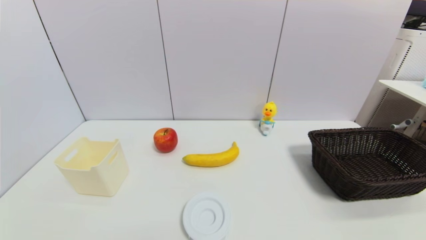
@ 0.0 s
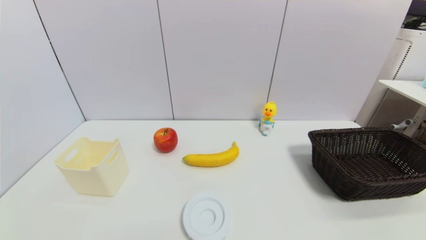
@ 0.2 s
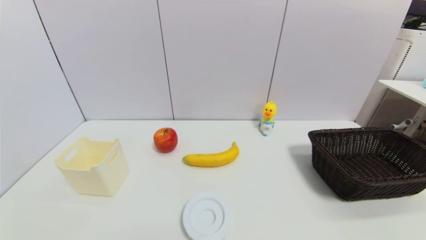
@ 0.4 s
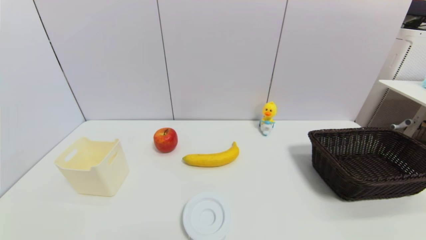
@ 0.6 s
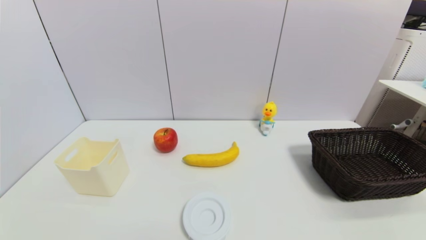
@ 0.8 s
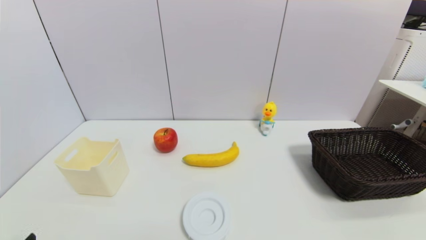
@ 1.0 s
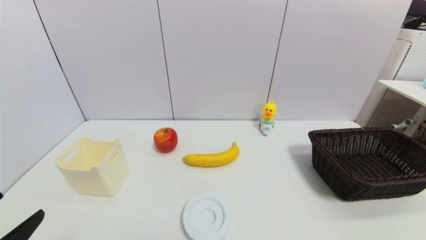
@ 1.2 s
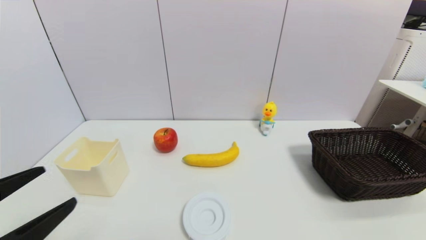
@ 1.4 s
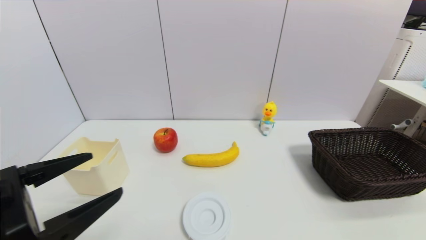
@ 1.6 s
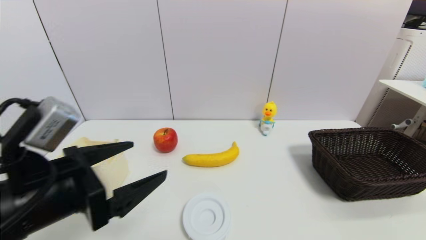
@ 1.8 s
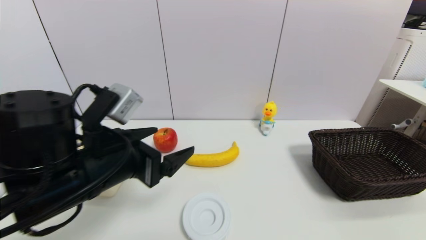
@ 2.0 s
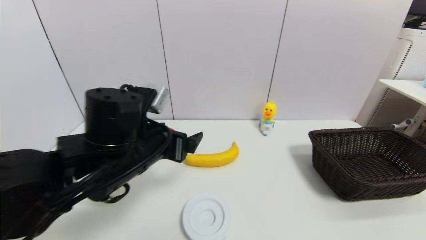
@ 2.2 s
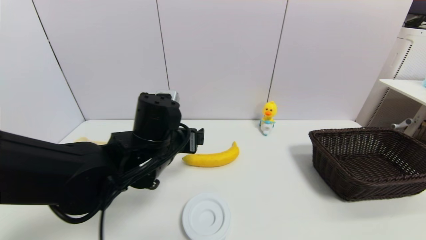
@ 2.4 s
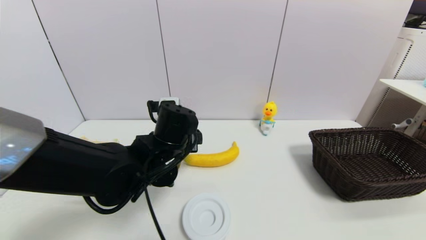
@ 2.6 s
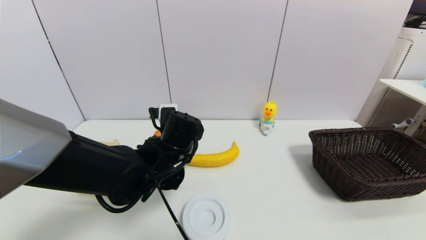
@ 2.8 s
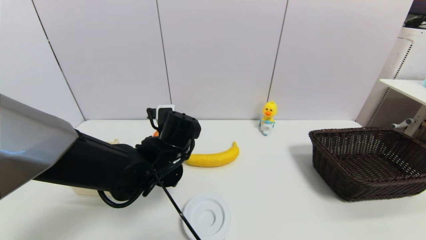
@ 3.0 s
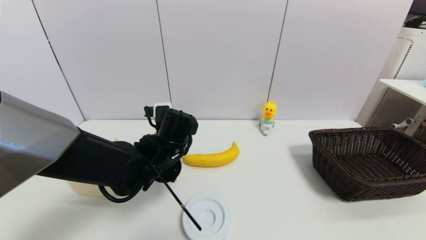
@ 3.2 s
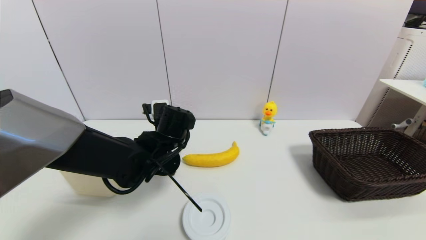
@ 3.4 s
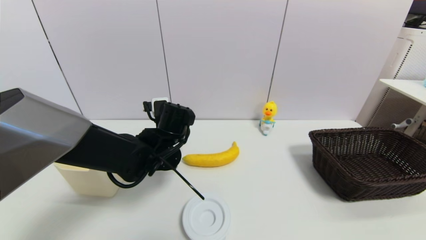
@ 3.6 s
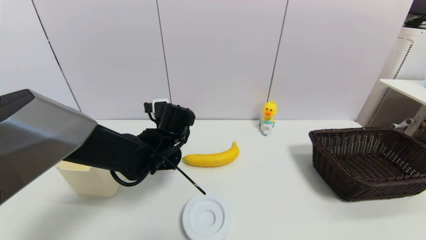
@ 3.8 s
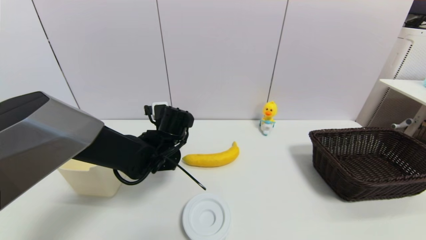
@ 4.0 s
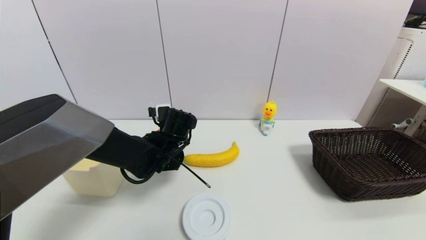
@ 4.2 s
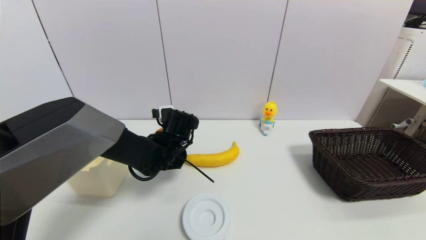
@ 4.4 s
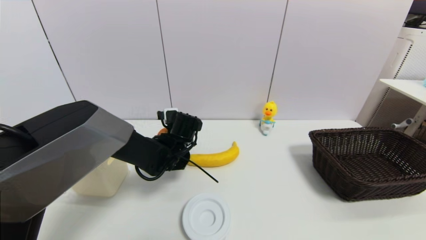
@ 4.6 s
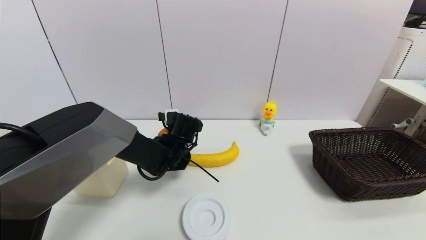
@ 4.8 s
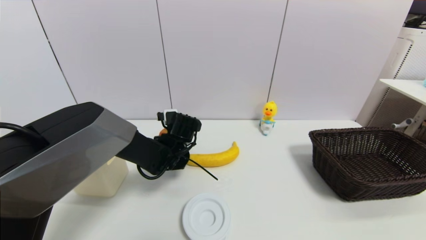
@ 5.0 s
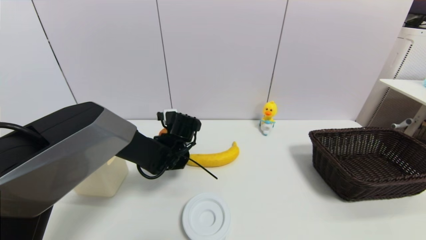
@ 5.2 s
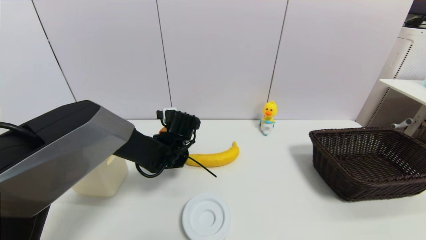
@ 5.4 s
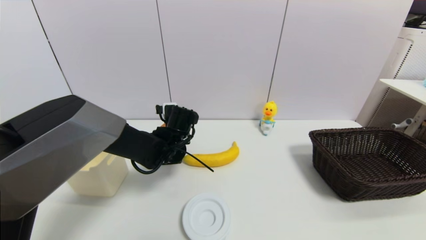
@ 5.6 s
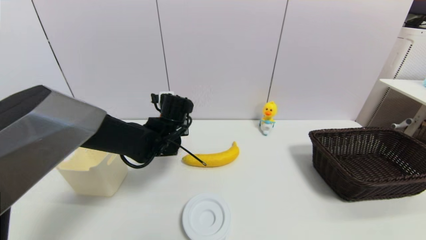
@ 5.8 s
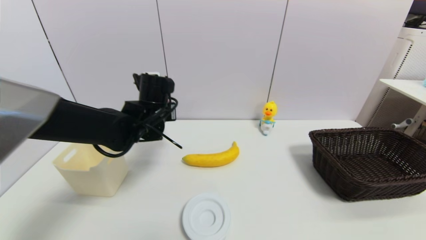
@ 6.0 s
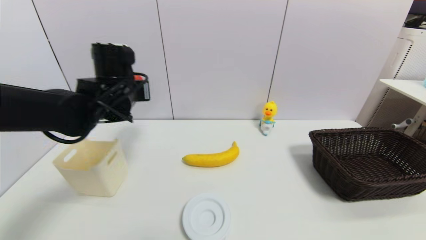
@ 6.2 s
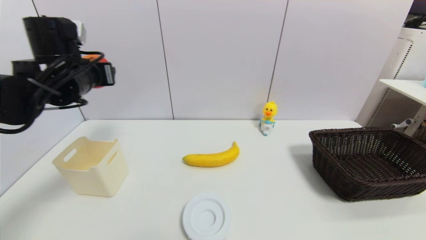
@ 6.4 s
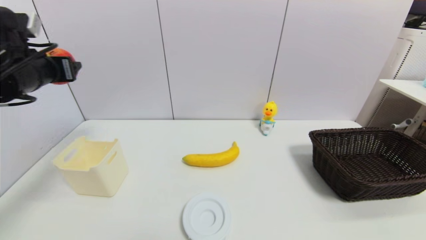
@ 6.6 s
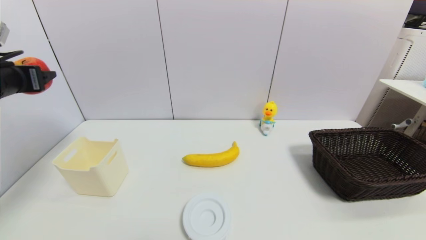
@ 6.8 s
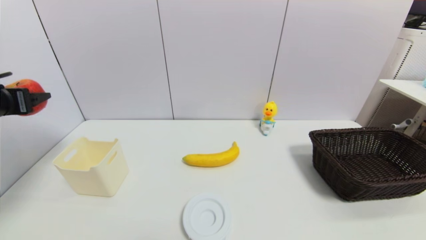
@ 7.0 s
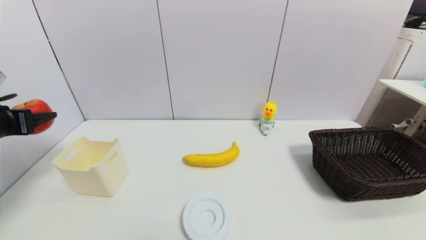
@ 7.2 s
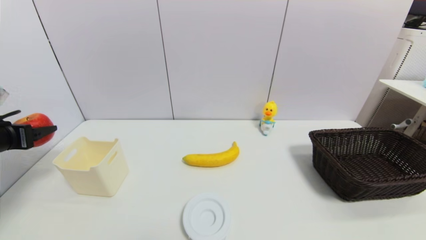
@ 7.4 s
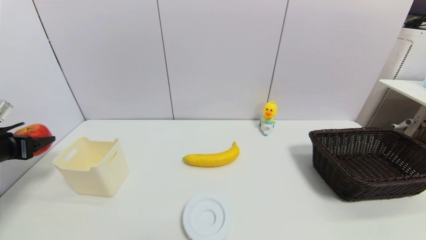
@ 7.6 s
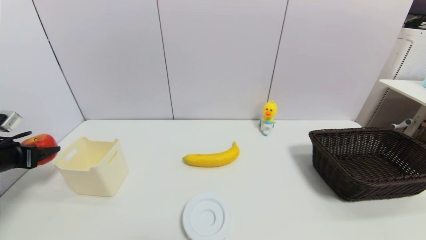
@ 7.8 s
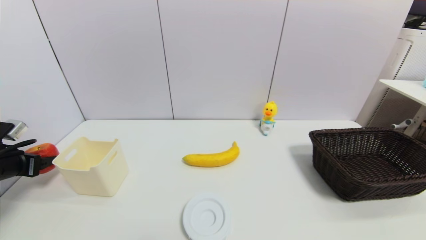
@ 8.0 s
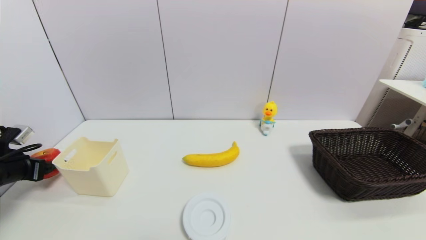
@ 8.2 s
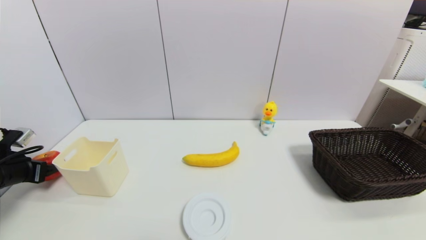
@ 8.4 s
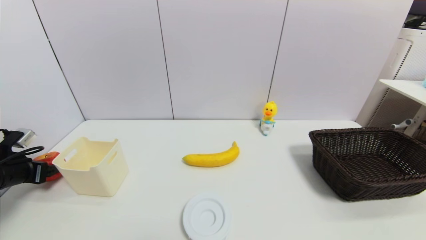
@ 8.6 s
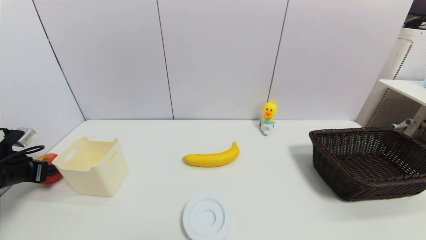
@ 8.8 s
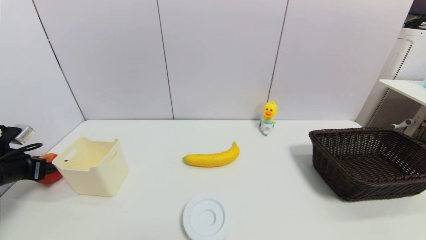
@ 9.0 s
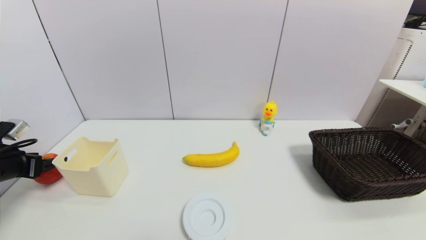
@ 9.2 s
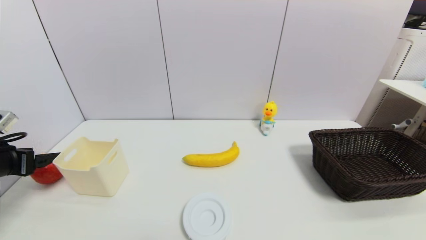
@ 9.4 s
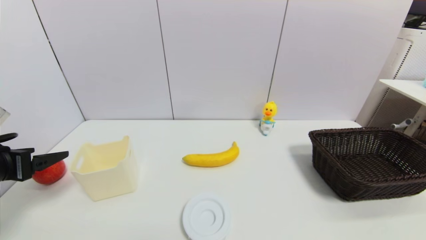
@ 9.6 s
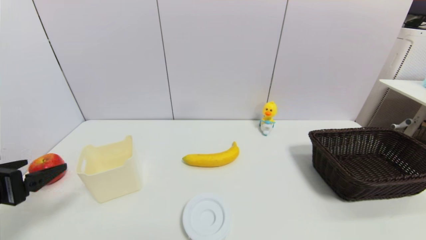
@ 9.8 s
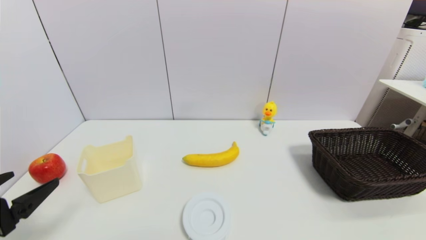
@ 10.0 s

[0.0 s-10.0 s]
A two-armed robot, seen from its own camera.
Task of the whole recording: put the apple in the designated position.
Step, 1.0 to 5.2 s: Grasp the apple with left gripper.
Step, 5.4 to 10.0 s: Place the apple on the table with left gripper.
0.0 to 1.4 s: The left gripper heads upward and forward, covering about 15 cm.
1.4 to 2.8 s: The left gripper moves forward and to the right, some 30 cm.
2.8 to 4.2 s: The left gripper moves forward, approximately 5 cm.
4.2 to 5.8 s: The left gripper closes.
5.8 to 7.2 s: The left gripper shifts about 30 cm to the left.
7.2 to 8.6 s: The left gripper heads downward and to the left, covering roughly 15 cm.
8.6 to 10.0 s: The left gripper heads backward, to the right and upward, covering about 25 cm, and opens up.

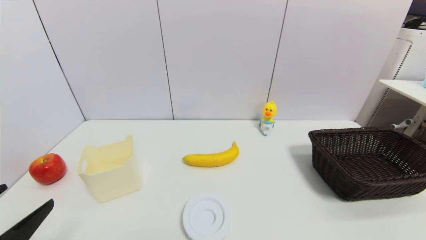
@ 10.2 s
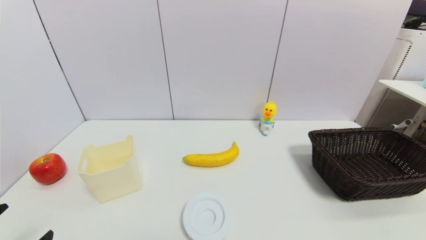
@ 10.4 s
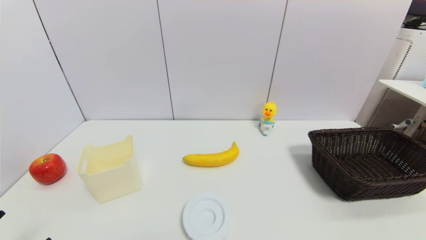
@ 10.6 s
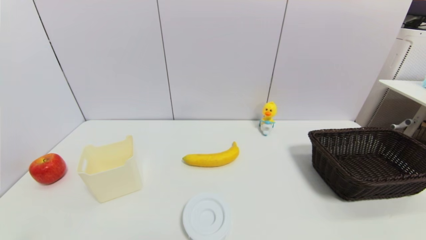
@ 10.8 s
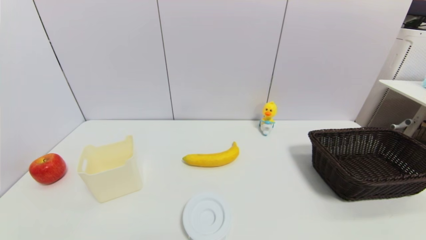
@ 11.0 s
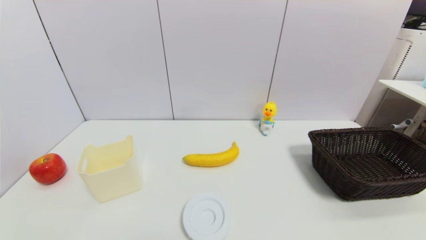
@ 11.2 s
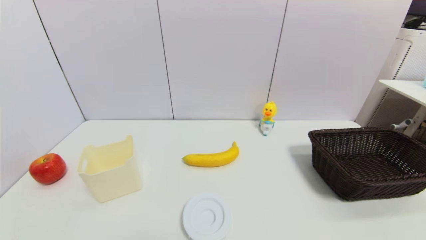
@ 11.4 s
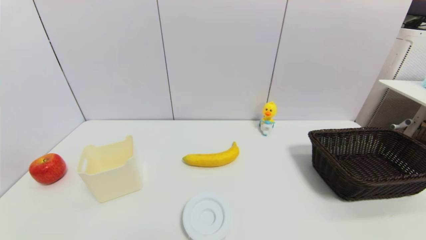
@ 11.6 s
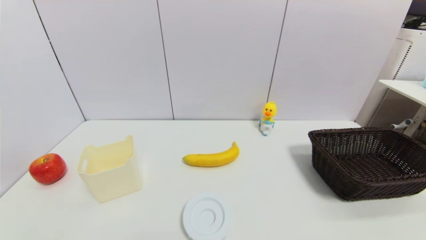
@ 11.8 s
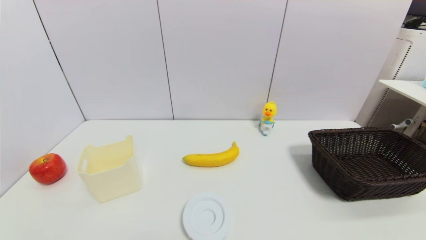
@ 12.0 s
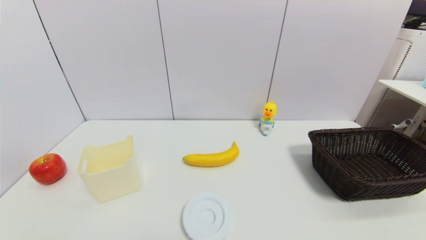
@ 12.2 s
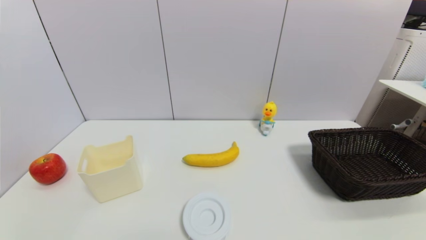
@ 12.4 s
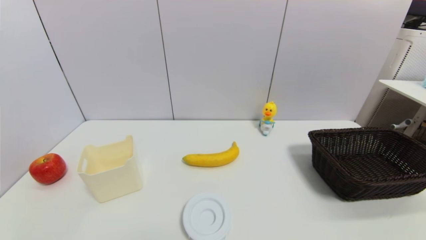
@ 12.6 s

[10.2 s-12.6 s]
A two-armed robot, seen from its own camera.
Task of the whole recording: put the apple in the designated position.
10.2 to 11.4 s: The left gripper is displaced downward and backward by roughly 10 cm.
11.4 to 12.6 s: Both grippers stay put.
